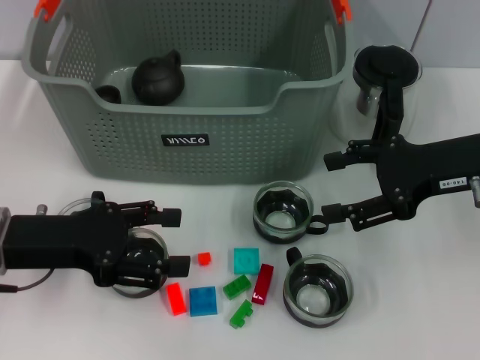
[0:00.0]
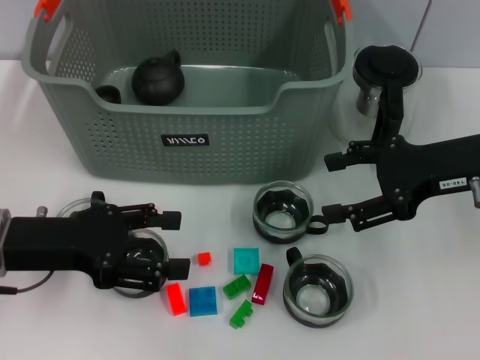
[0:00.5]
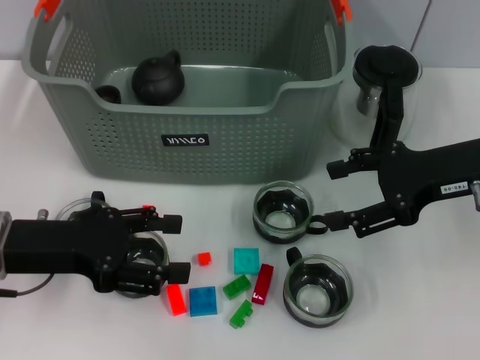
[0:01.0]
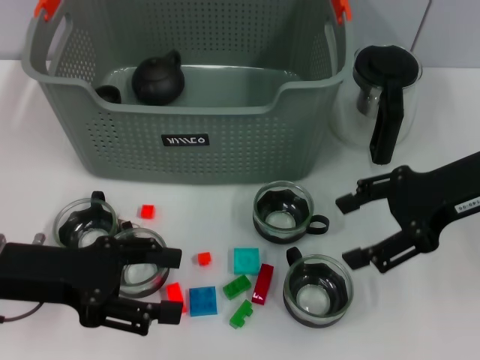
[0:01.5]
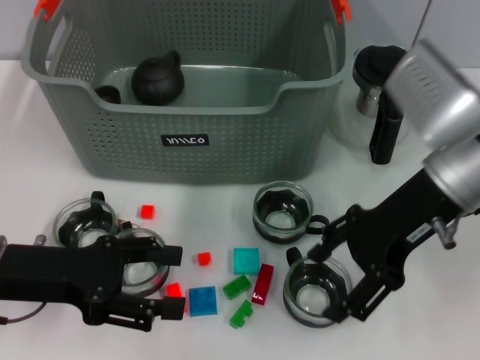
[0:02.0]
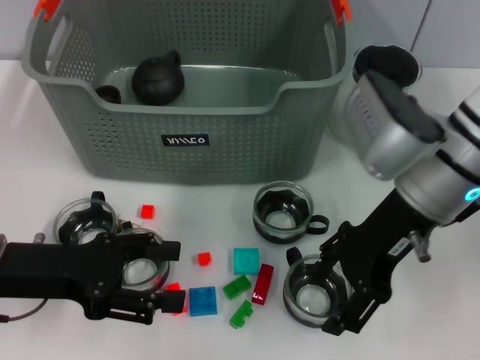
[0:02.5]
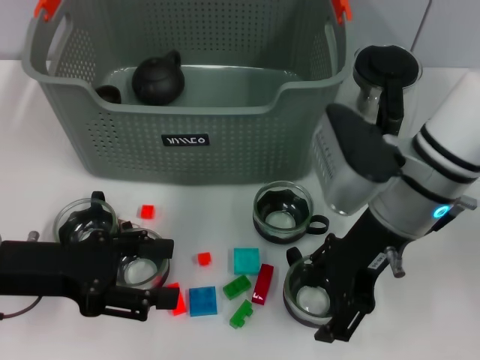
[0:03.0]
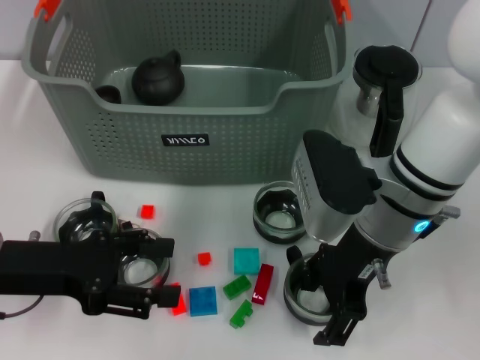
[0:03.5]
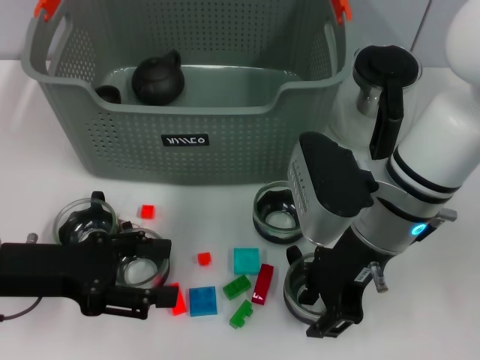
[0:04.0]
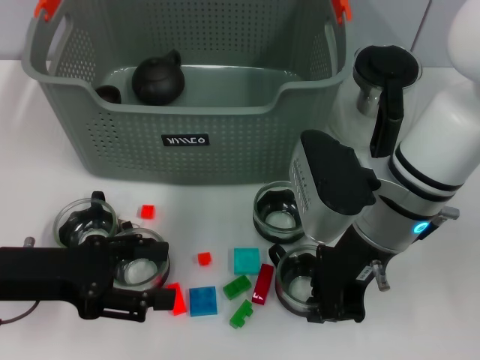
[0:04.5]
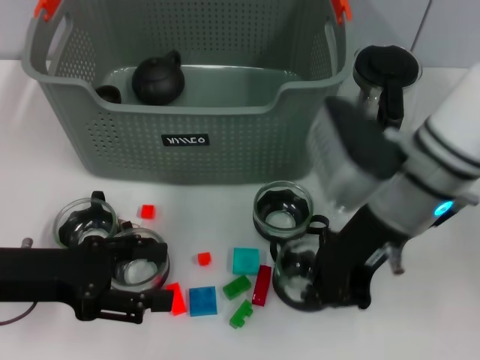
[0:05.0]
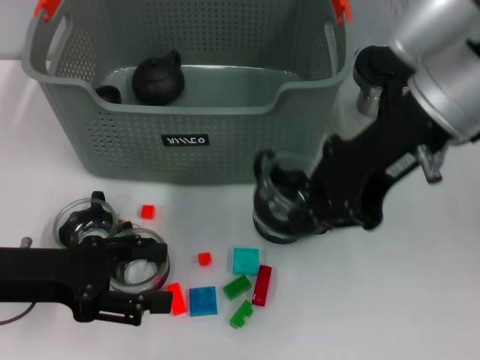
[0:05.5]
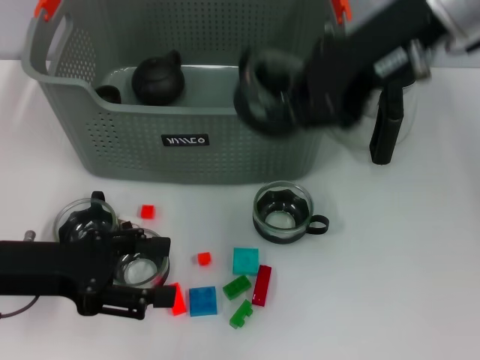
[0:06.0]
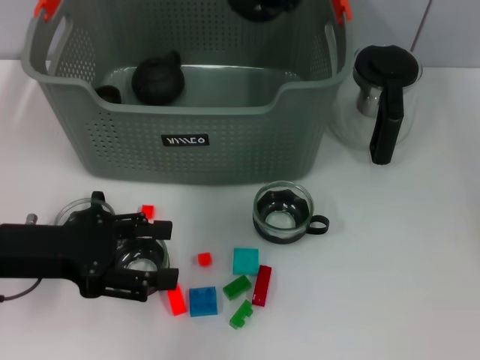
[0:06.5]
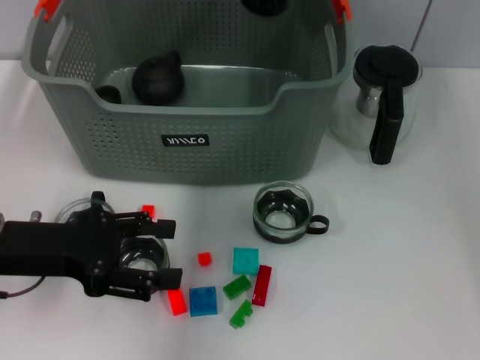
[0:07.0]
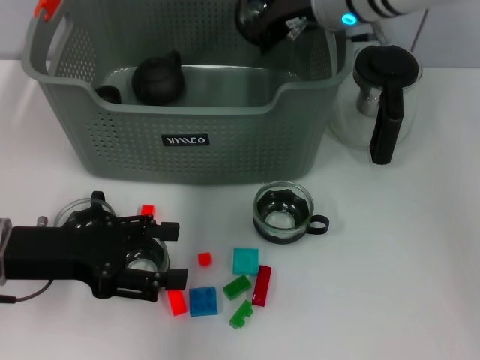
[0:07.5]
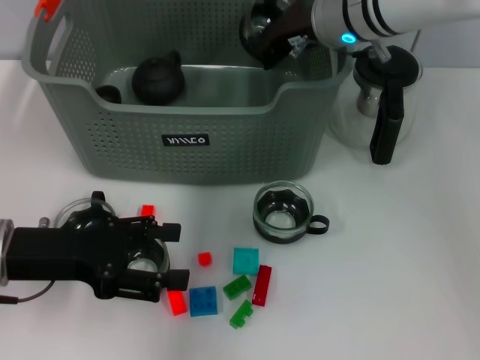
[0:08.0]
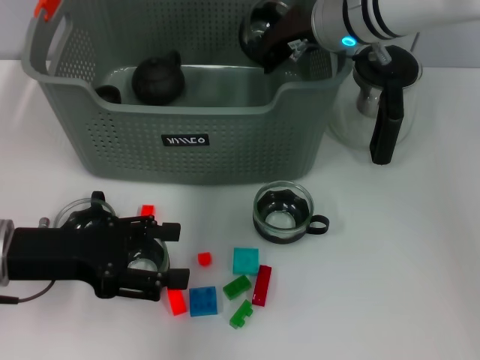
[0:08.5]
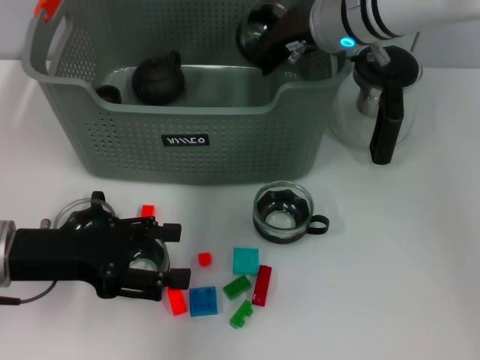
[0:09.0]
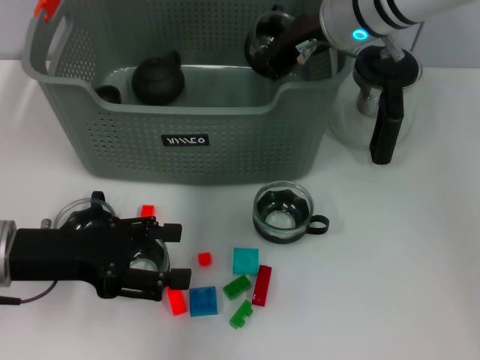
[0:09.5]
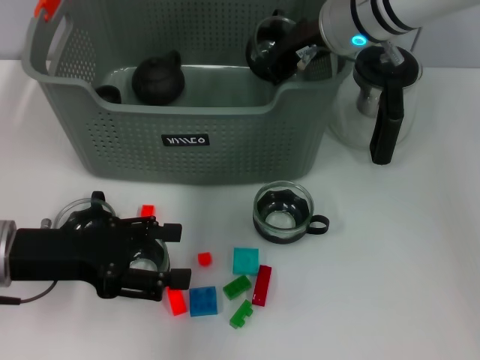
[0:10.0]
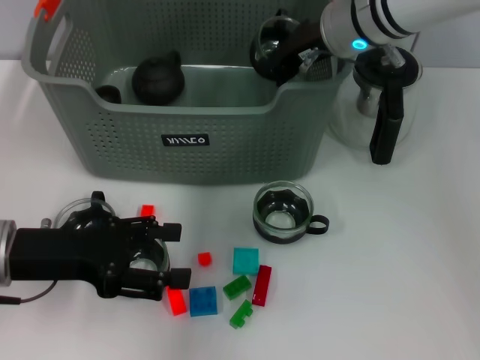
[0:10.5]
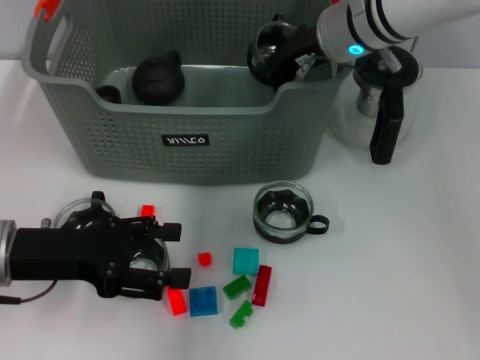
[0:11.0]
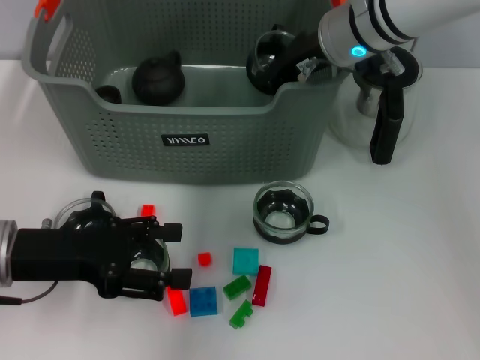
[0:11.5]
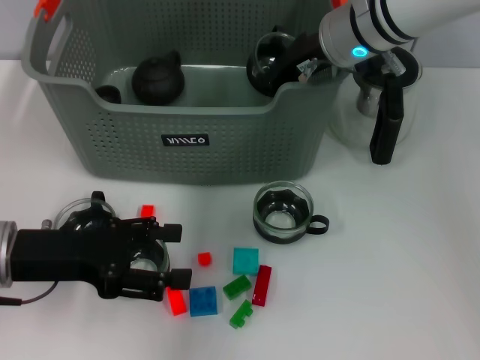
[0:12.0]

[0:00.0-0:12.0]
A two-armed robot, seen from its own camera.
Task of the whole recording: pick up the teacup on the table and place it into the storage bin, pick up the block on the table and place it into the storage bin.
Step, 0:00.0 to 0:05.0: Grasp the cup with right gripper.
0:00.0 to 0:02.0: The right gripper is displaced to the left by about 5 cm.
0:02.0 to 0:04.0: The right gripper is displaced to the left by roughly 5 cm.
0:04.0 to 0:06.0: The right gripper goes about 20 cm upward, and closes up.
0:06.0 to 0:08.0: The right gripper goes about 15 cm downward and forward.
0:08.0 to 0:10.0: The grippers make only small movements.
0:10.0 to 0:12.0: Neither gripper changes place.

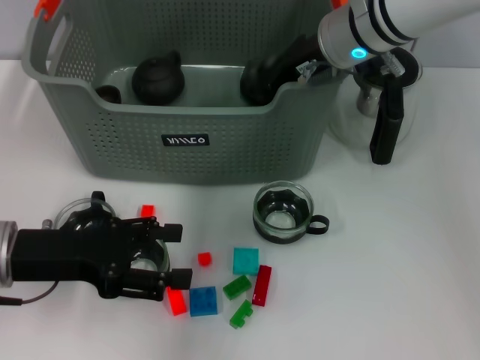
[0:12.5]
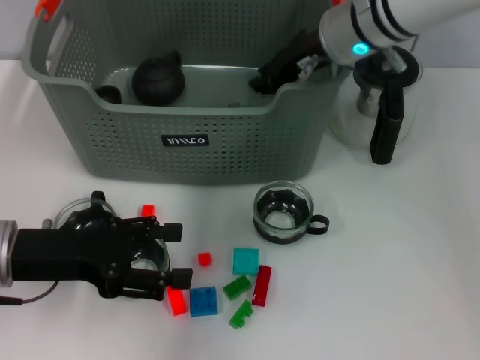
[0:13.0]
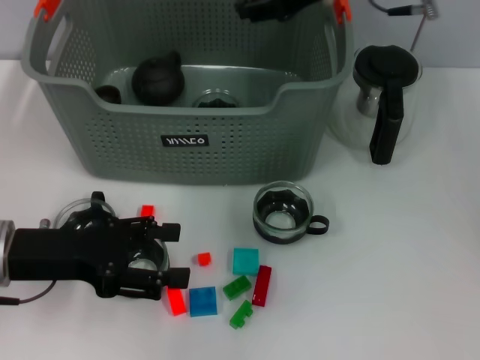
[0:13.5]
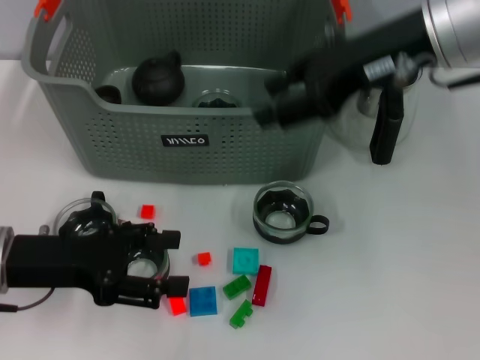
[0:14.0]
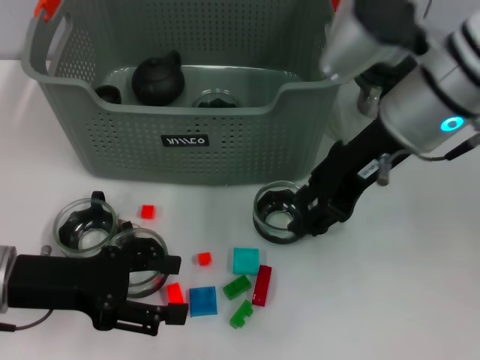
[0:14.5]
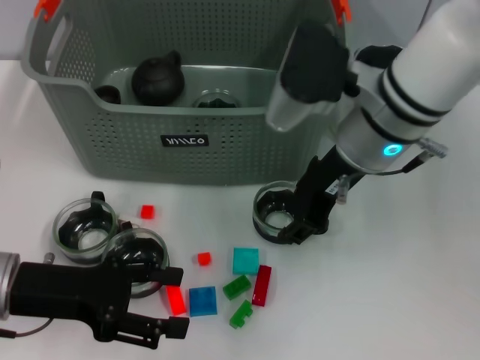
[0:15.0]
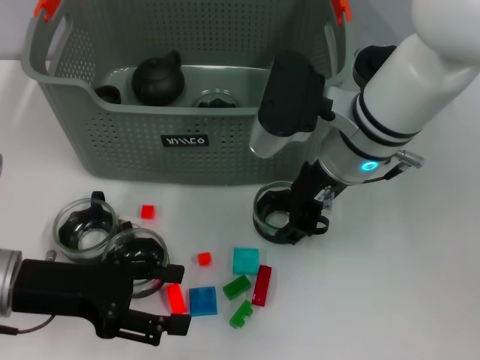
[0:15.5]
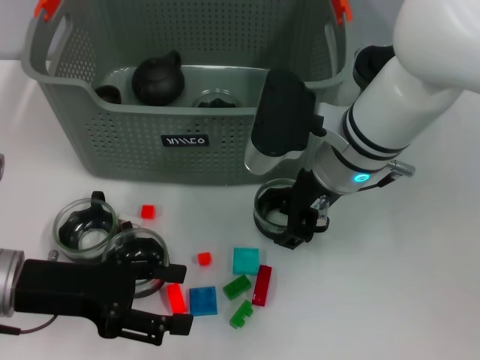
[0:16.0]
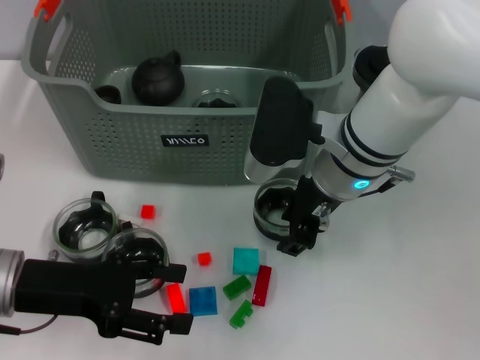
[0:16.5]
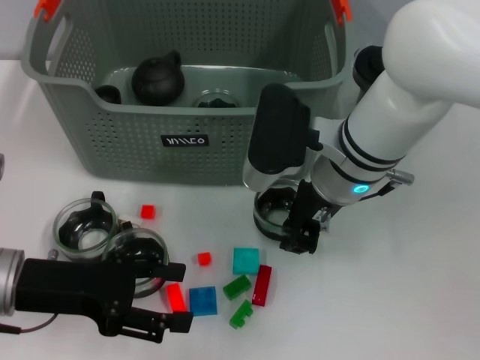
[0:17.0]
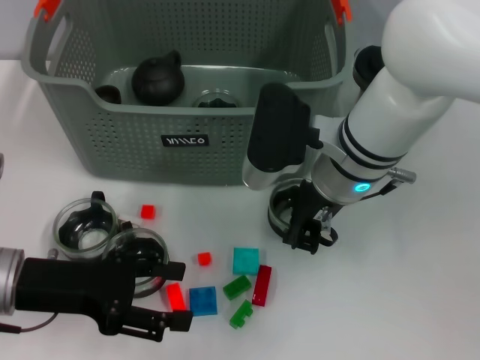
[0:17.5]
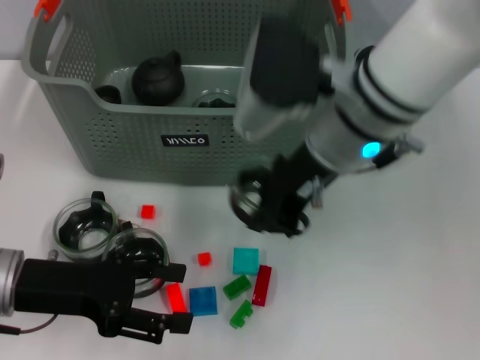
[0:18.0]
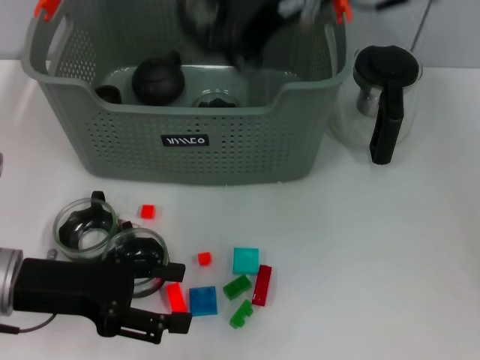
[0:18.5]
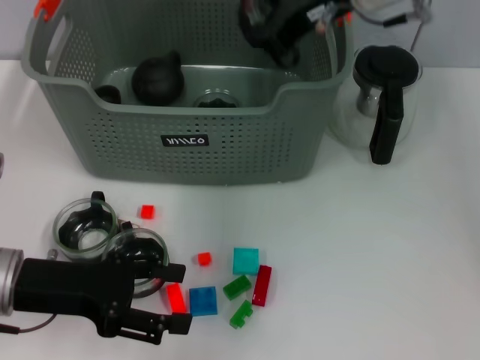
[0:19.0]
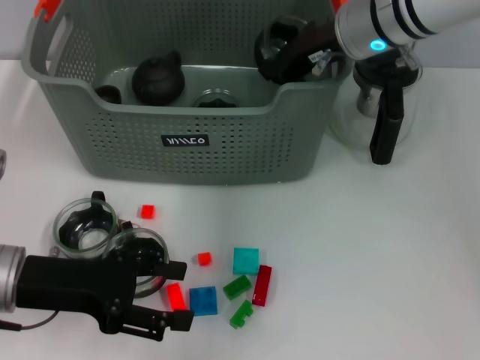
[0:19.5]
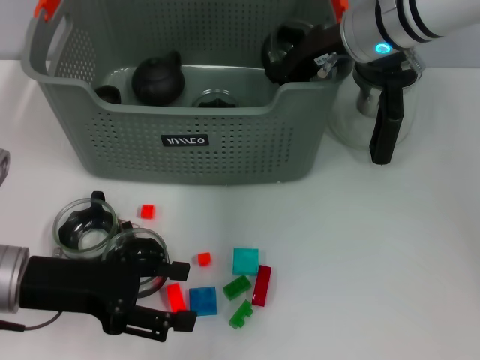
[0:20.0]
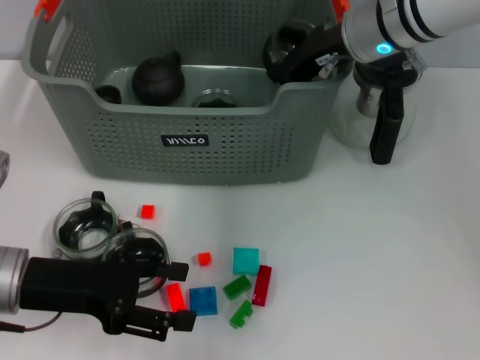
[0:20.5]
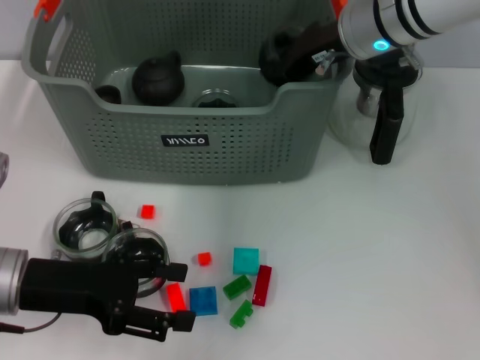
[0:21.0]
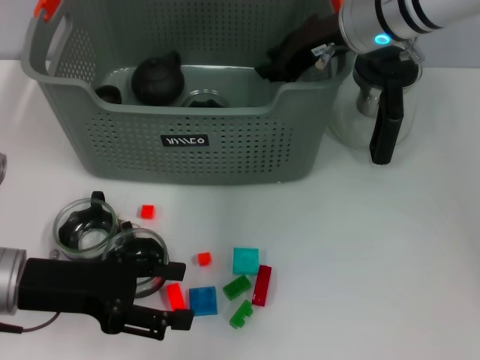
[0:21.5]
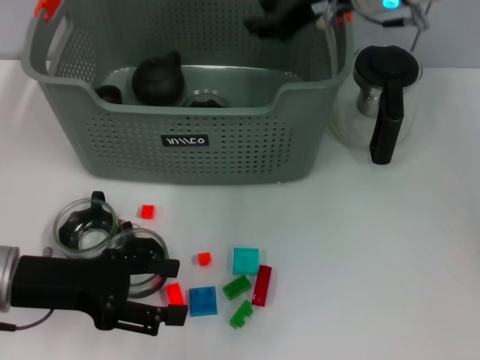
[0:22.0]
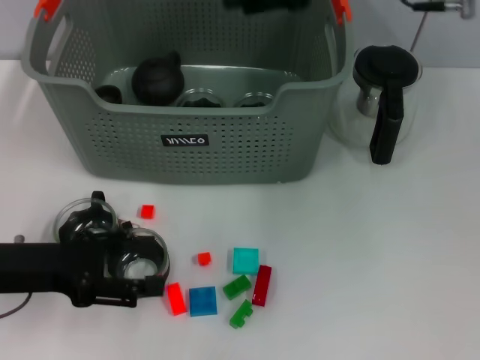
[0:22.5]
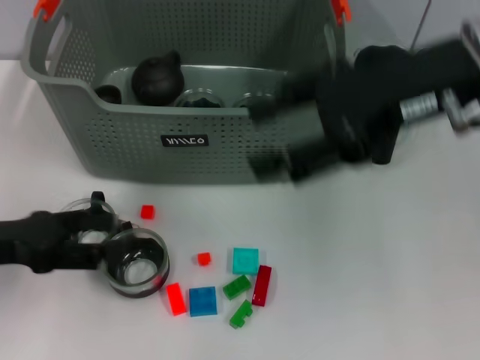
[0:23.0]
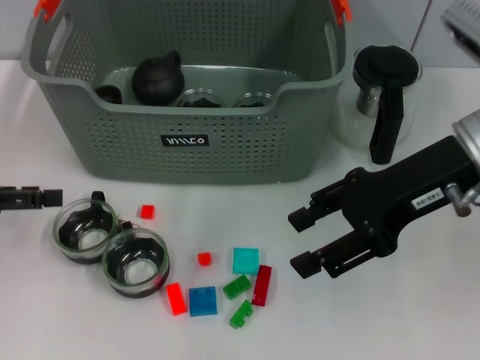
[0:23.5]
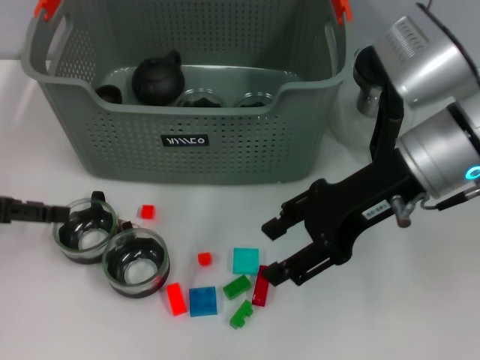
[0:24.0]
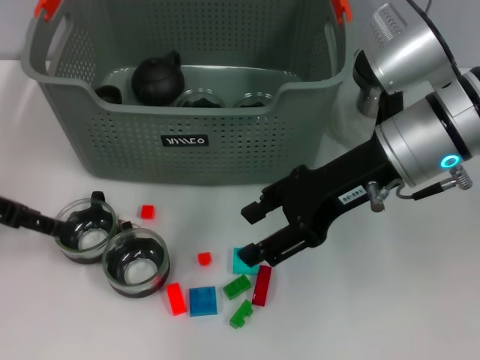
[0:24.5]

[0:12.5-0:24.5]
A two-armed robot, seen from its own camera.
Task of the whole recording: pick up the teacup on the table and place it into the storage bin, pick up the block on the table and place it into the storage bin.
Step, 0:14.0 to 0:17.5: Grasp the cup with right gripper.
Step, 0:18.0 to 0:21.5: Place the cup in the storage box with right gripper.
0:12.5 to 0:14.5: The right gripper heads backward, covering some 10 cm, and opens.
0:14.5 to 0:16.5: The right gripper heads downward, covering approximately 10 cm.
0:16.5 to 0:18.5: The right gripper moves upward, approximately 20 cm, and closes.
0:18.5 to 0:20.5: The right gripper goes approximately 15 cm downward and forward.
0:20.5 to 0:22.5: The right gripper is displaced upward by some 10 cm, and opens its fingers.
0:22.5 to 0:24.5: The right gripper moves downward and backward, roughly 10 cm; the left gripper travels forward, to the left and upward by approximately 10 cm.

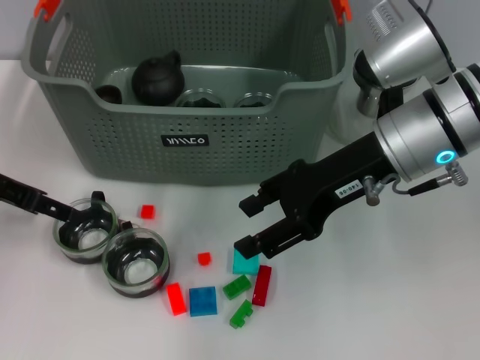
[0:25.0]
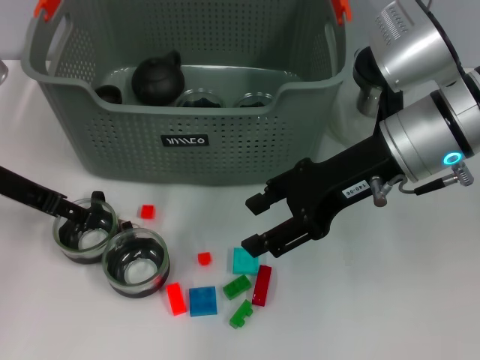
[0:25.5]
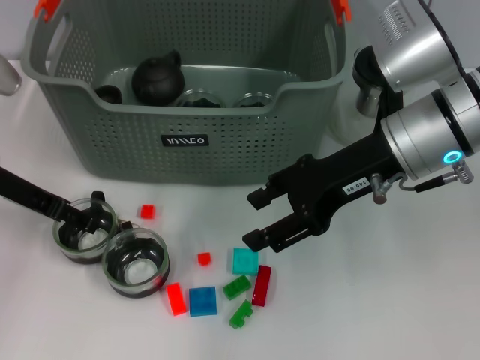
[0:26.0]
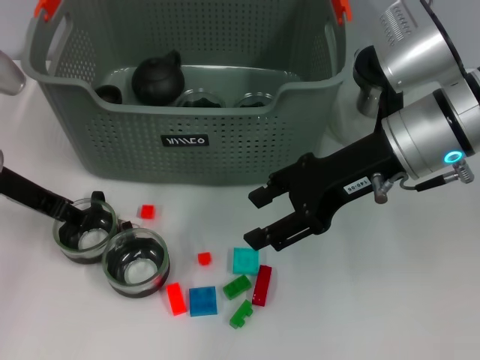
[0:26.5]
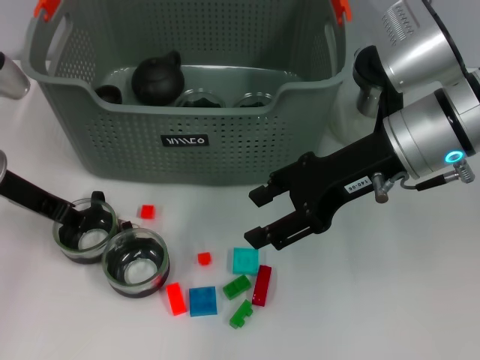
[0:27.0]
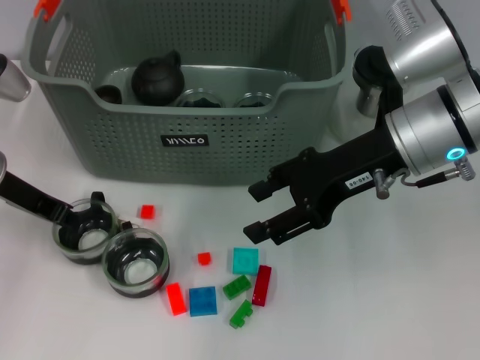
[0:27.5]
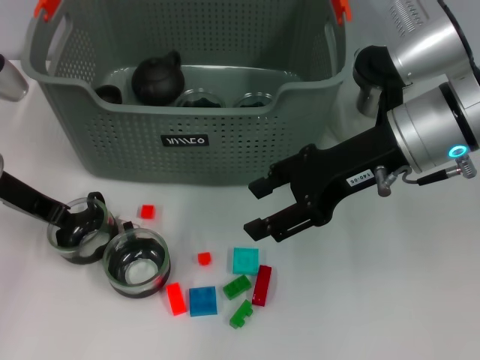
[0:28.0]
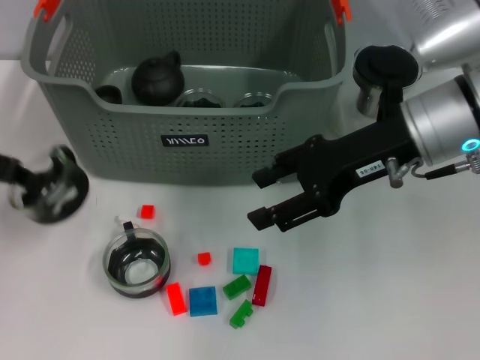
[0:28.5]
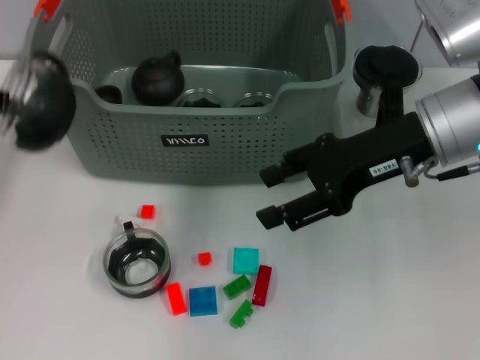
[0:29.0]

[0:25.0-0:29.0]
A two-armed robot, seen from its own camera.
Task of the whole recording: pick up the teacup on the table and place it into the storage bin, pick up the block on the table and place it into the storage bin.
Step, 0:25.0 to 0:28.0: Grasp the cup with left gripper.
0:25.0 to 0:27.0: The left gripper closes up.
0:27.0 to 0:29.0: The left gripper heads upward and to the left, covering some 15 cm, and closes up.
